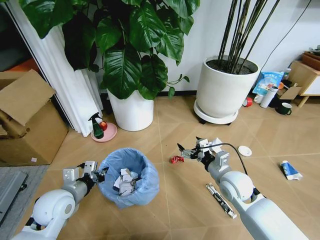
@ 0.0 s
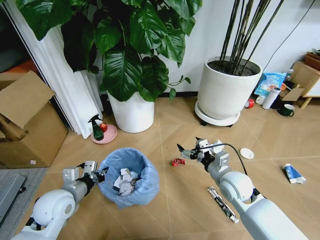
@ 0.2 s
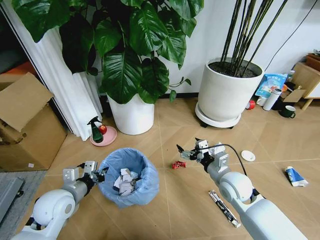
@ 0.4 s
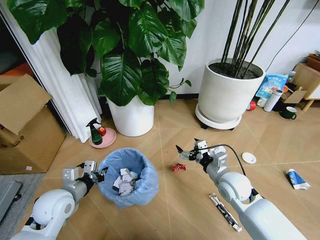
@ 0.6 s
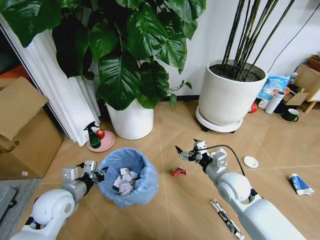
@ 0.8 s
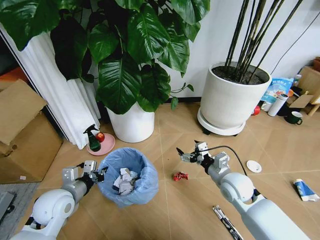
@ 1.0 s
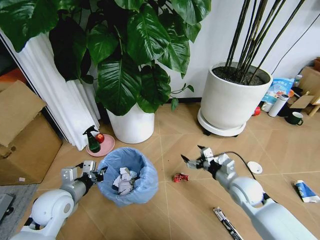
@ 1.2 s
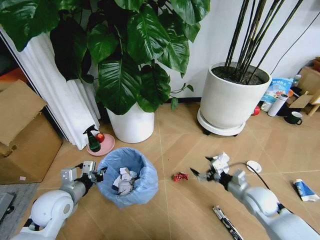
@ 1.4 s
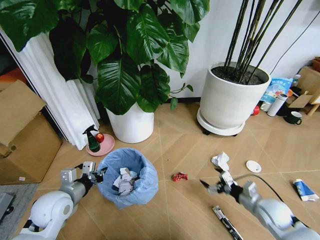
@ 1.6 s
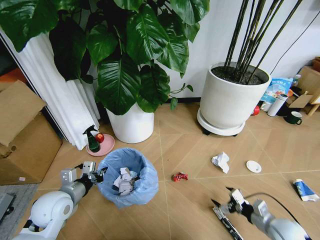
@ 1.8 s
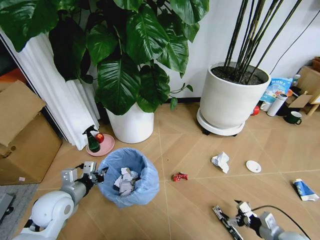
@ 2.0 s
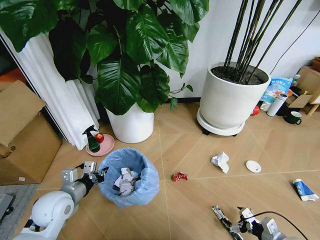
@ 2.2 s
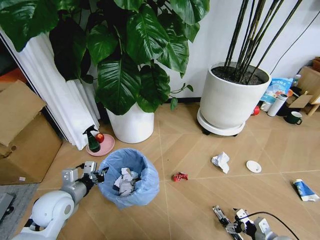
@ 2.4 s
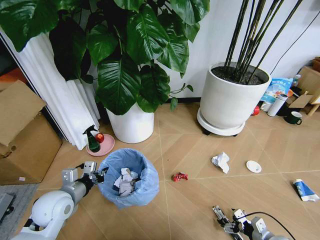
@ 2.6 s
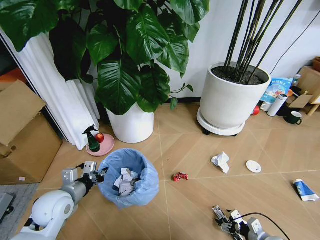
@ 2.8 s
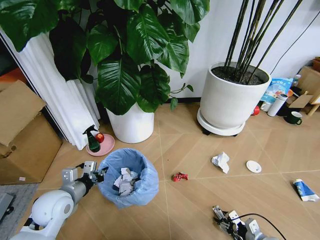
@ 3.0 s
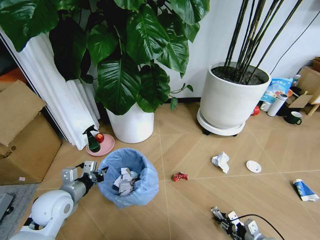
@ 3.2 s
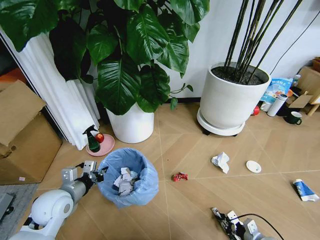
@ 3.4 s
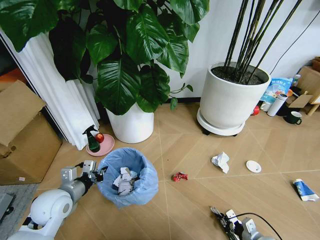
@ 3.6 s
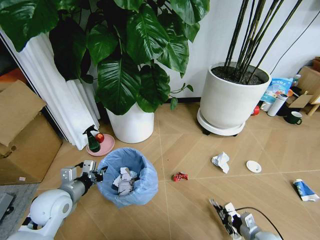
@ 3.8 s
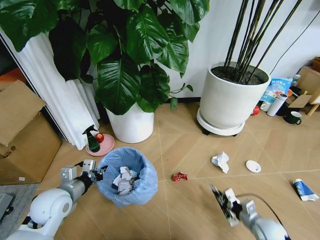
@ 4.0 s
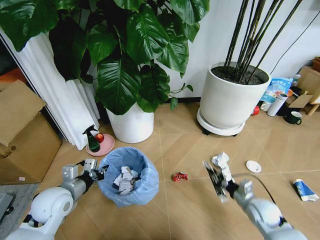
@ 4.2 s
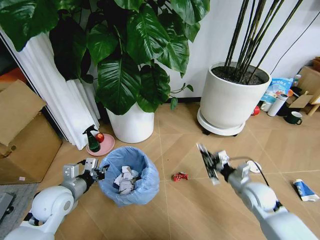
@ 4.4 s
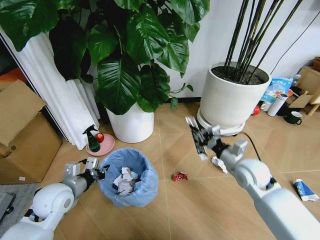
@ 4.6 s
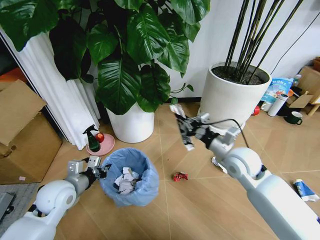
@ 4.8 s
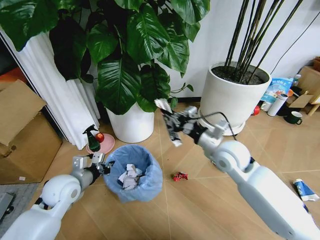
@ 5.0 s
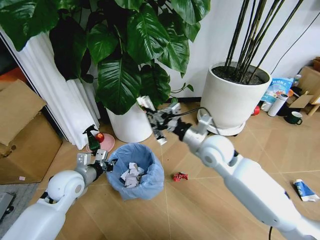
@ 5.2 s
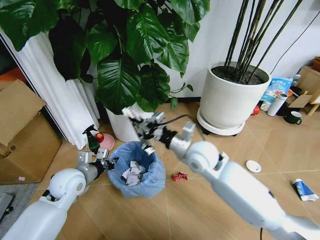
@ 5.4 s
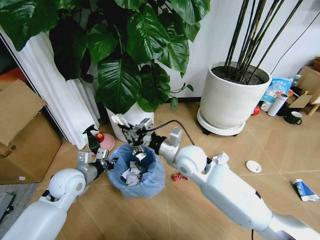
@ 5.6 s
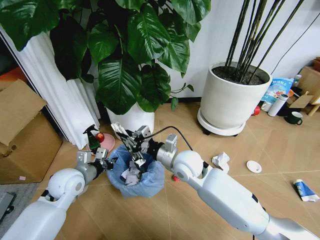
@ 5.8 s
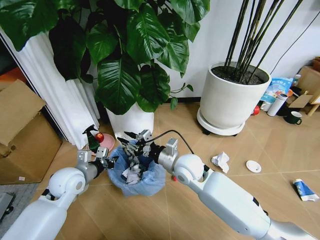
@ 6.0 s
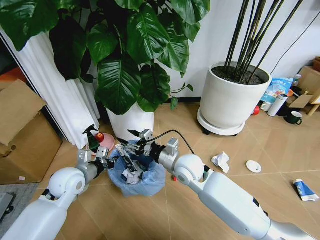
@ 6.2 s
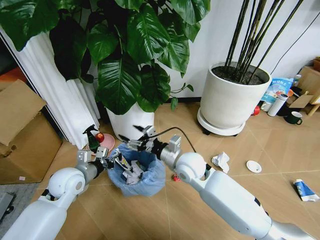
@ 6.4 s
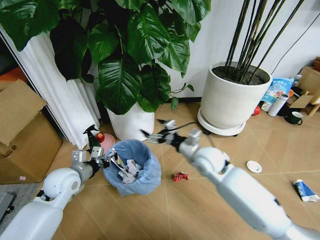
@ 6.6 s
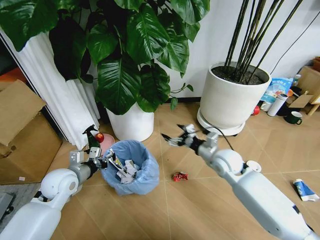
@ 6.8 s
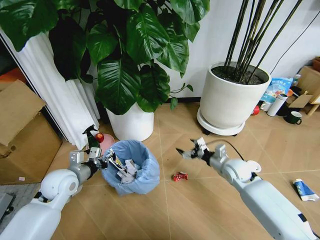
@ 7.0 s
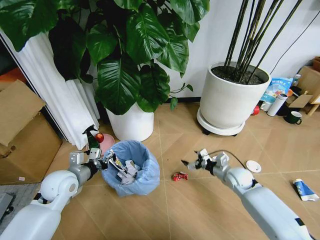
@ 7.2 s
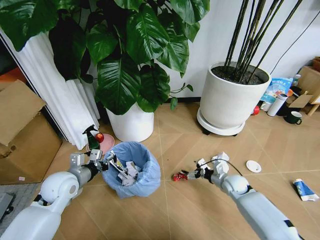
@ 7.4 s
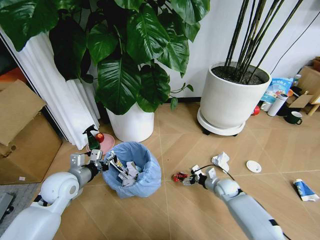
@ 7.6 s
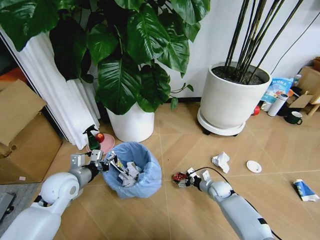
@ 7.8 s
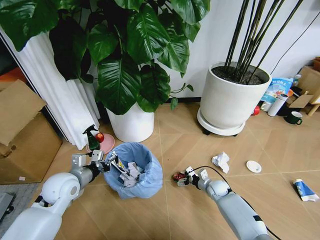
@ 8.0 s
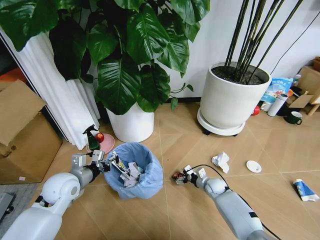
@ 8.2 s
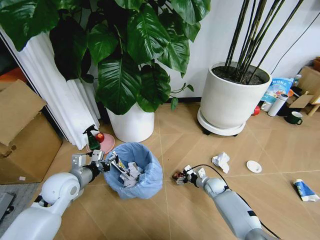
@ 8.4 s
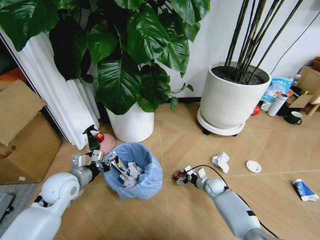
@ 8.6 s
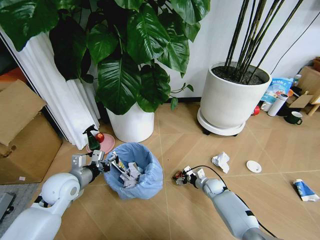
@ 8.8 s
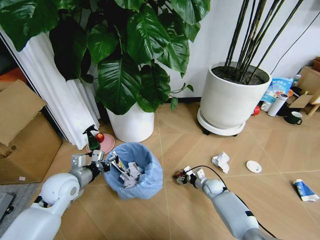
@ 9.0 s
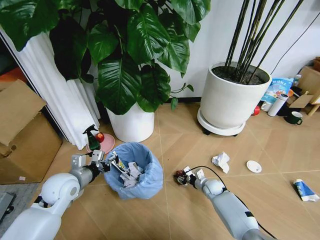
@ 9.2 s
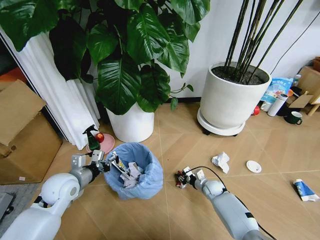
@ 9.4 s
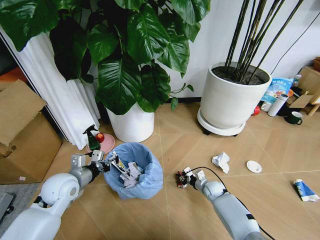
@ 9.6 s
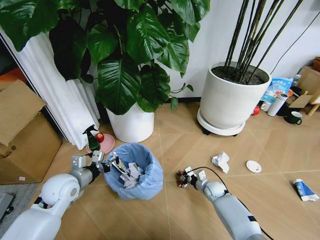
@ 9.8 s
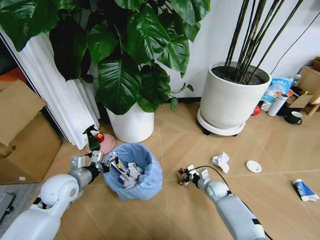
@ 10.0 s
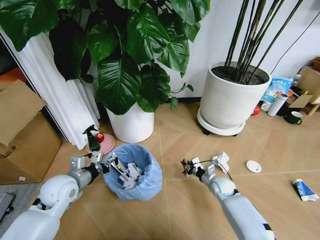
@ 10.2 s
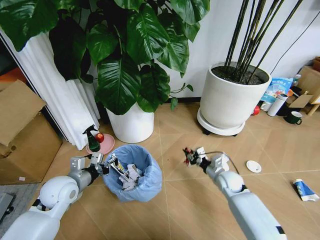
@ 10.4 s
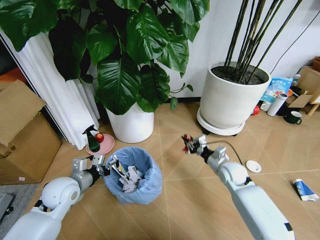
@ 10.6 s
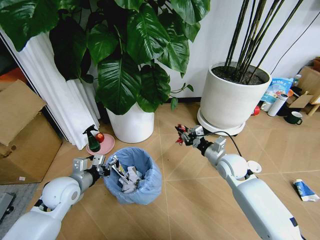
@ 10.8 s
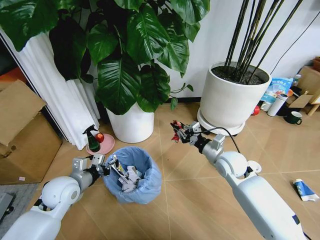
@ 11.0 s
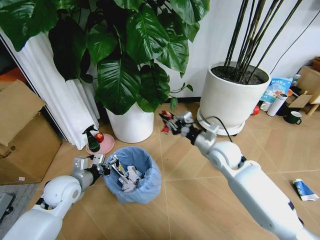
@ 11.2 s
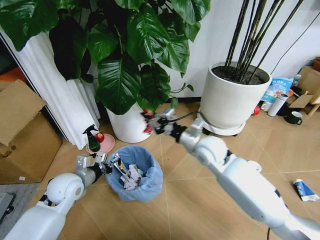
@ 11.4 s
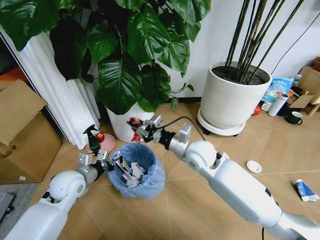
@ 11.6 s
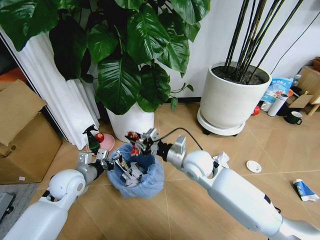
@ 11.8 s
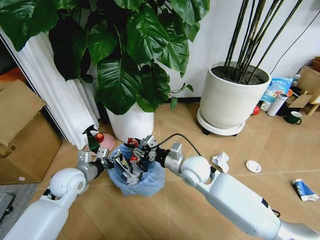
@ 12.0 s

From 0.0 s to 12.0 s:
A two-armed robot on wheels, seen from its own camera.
Task of the whole recording: Pick up the trash bin and place the garbage on the floor into it.
From 0.0 s to 1.6 s: The right gripper travels to the right, downward and backward by about 20 cm.
From 1.6 s to 3.0 s: The right gripper is displaced downward and backward by about 15 cm, and closes its fingers.
From 3.0 s to 4.4 s: The right gripper goes approximately 25 cm upward, forward and to the left, and closes up.
From 4.4 s to 6.0 s: The right gripper moves to the left, roughly 25 cm. The left gripper shifts approximately 5 cm forward.
From 6.0 s to 7.6 s: The right gripper moves downward and to the right, roughly 30 cm, and opens.
From 7.6 s to 9.0 s: The right gripper shifts by some 5 cm.
From 9.0 s to 10.4 s: The right gripper moves upward, approximately 10 cm, and closes its fingers.
From 10.4 s to 12.0 s: The right gripper goes approximately 25 cm to the left and upward.

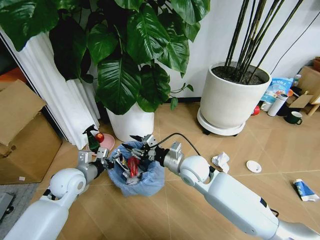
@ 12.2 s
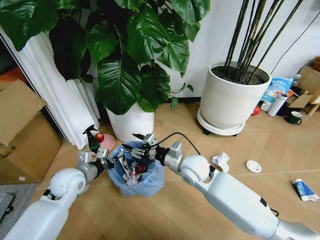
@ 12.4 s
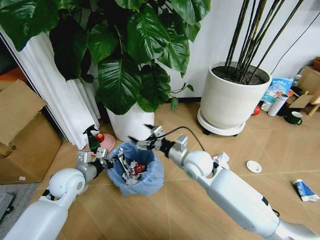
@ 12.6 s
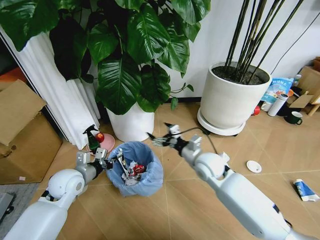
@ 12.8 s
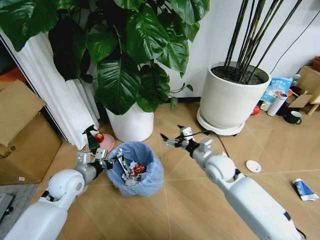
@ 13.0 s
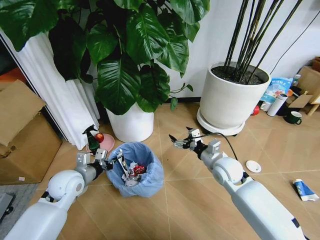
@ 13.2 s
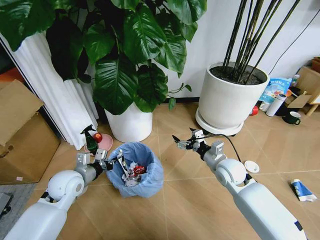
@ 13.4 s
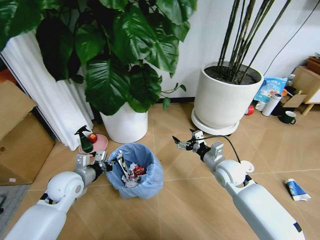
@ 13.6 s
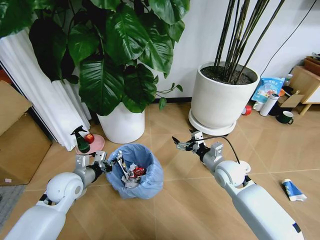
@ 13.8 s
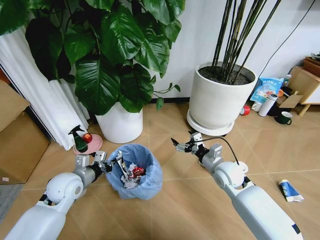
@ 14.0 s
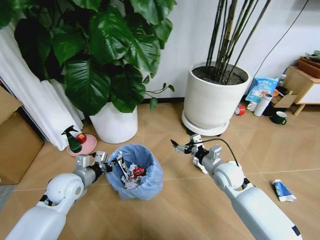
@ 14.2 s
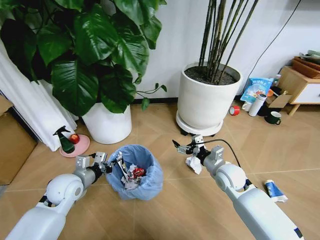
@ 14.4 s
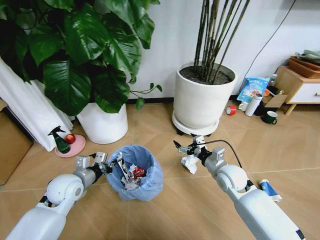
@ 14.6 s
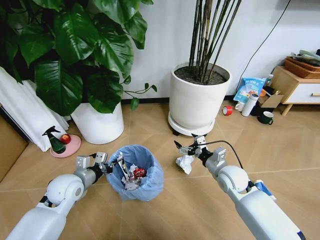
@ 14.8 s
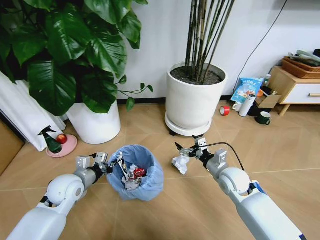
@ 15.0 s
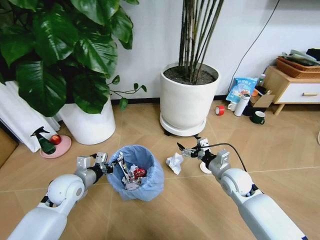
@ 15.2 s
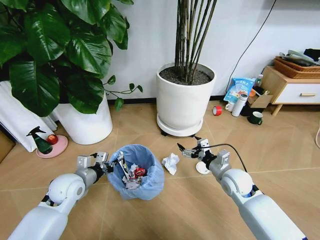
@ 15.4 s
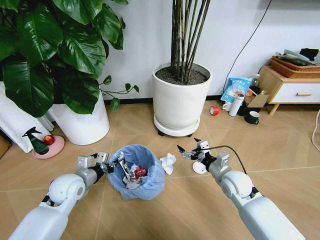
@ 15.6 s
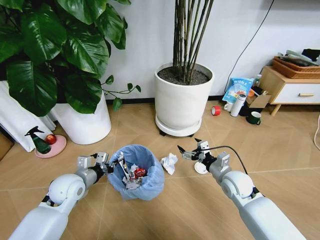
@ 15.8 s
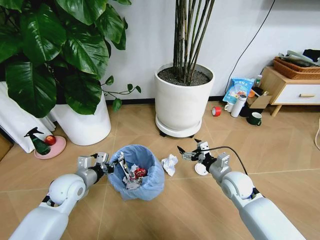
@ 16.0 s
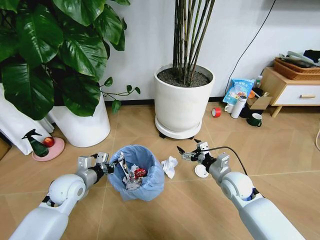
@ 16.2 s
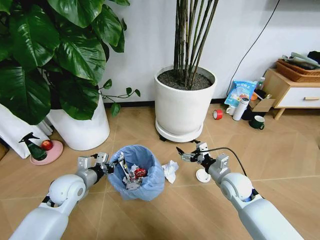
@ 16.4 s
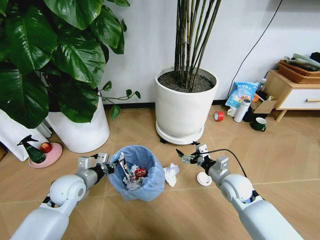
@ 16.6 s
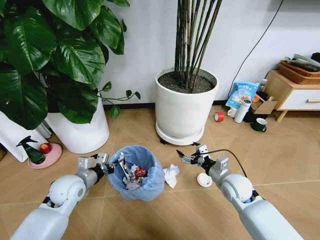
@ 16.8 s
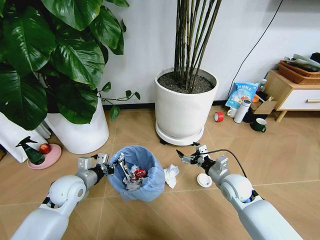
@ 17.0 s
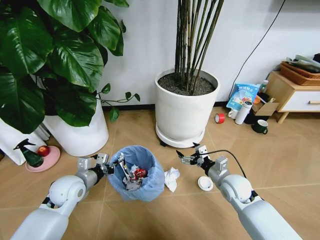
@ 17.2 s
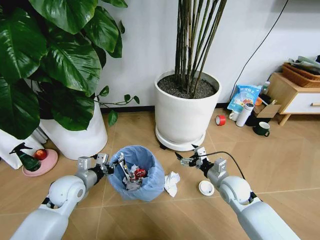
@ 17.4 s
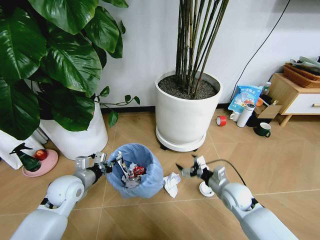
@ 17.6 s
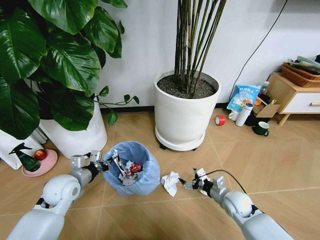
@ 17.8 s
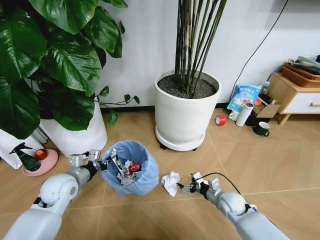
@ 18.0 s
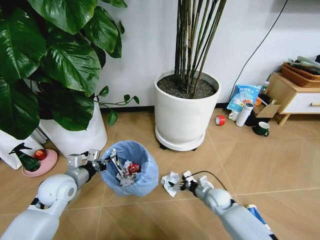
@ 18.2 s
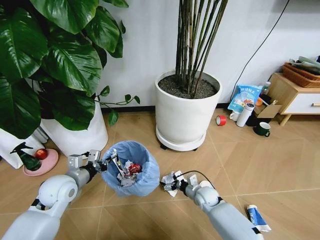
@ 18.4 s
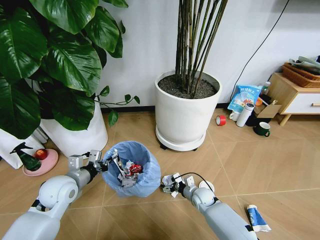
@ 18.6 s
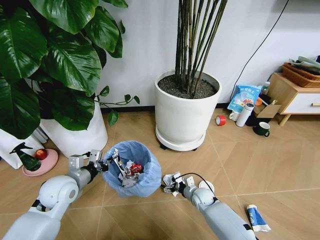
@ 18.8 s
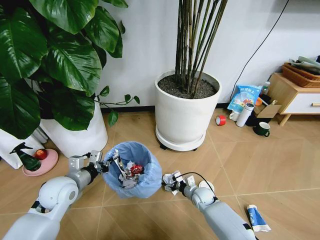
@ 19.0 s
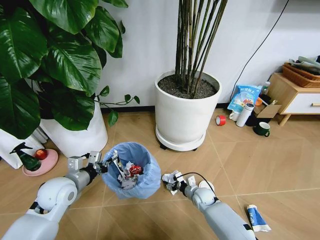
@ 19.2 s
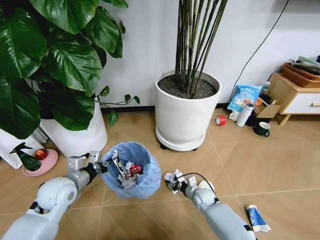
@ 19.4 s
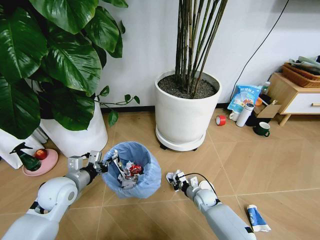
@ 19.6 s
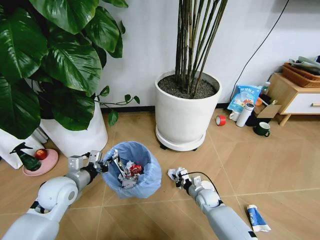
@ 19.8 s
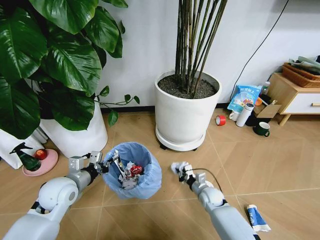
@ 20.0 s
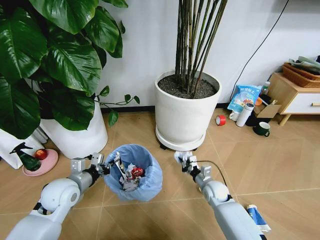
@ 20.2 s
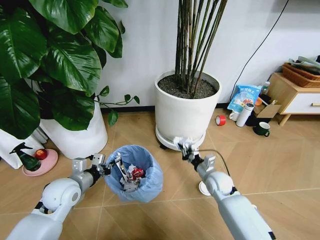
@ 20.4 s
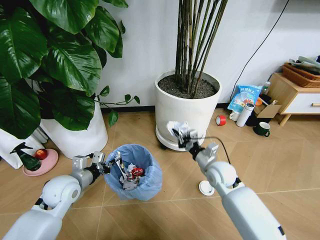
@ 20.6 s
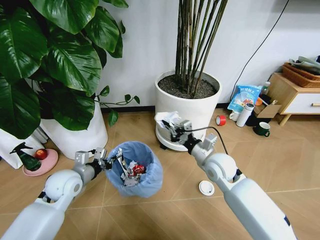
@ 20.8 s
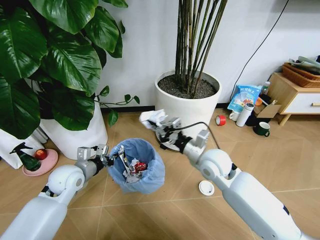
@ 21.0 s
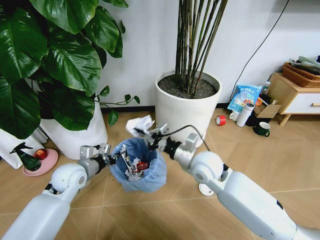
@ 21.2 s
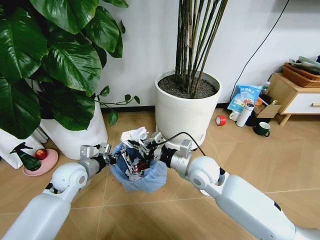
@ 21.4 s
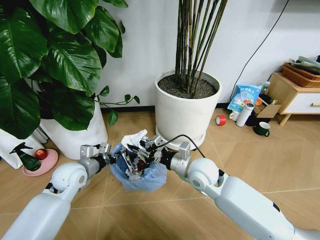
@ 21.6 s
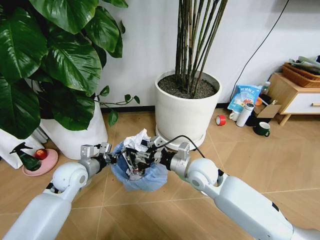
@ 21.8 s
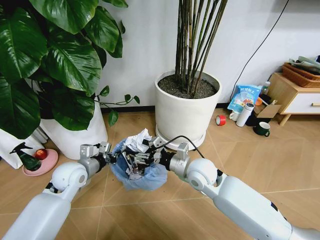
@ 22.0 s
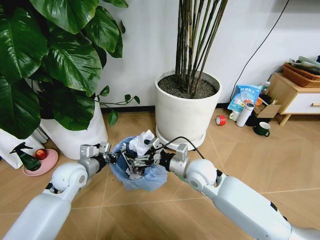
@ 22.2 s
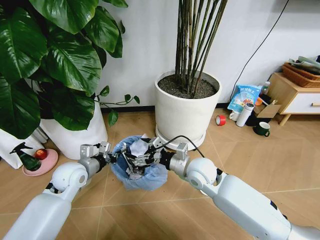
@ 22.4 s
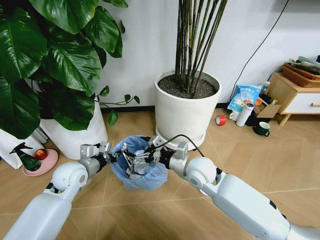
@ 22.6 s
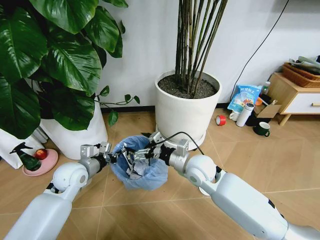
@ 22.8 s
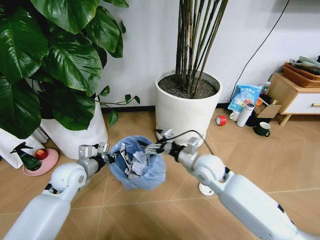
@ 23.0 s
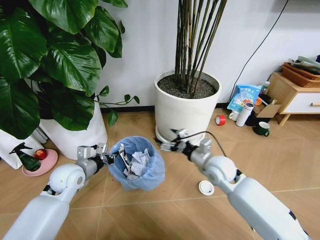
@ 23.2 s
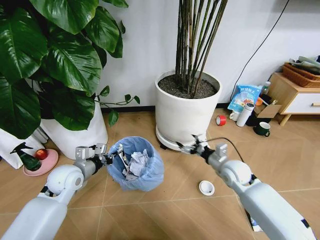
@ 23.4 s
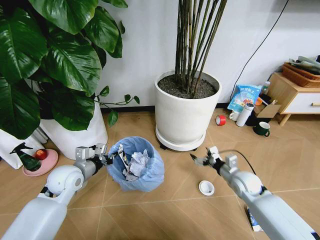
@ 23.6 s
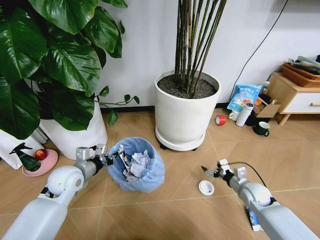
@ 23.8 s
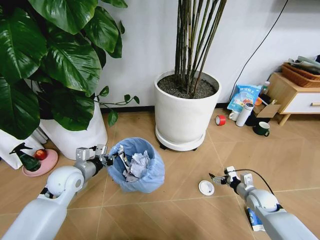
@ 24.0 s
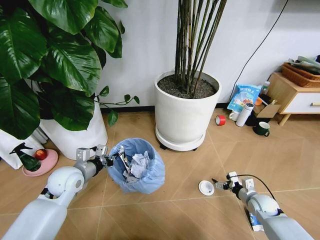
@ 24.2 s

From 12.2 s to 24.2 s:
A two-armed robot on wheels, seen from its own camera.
Task of the whole recording: Pick up the trash bin and place the garbage on the floor into it.
From 12.2 s to 13.8 s: The right gripper travels to the right by some 15 cm, and opens up.
From 16.6 s to 18.2 s: The right gripper shifts approximately 15 cm downward.
From 18.2 s to 19.8 s: The right gripper shifts by approximately 5 cm, and closes.
From 19.8 s to 21.2 s: The right gripper travels upward by about 30 cm, while the left gripper changes place by about 5 cm.
From 21.2 s to 22.6 s: The right gripper opens up.
From 22.6 s to 24.2 s: The right gripper goes about 35 cm to the right and downward.
